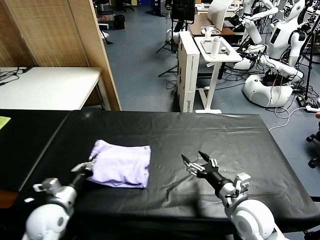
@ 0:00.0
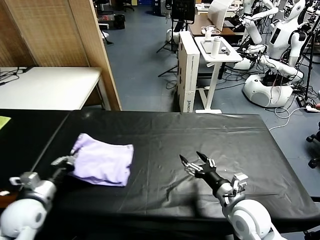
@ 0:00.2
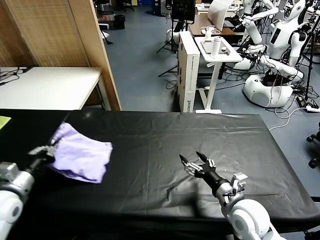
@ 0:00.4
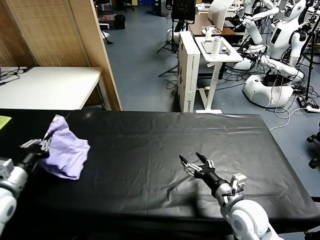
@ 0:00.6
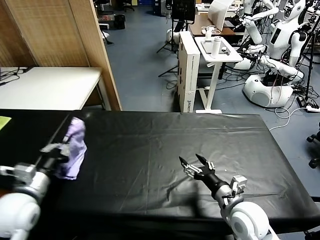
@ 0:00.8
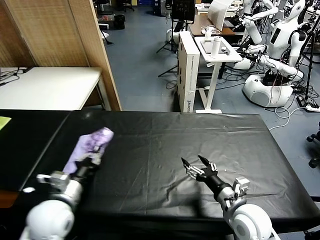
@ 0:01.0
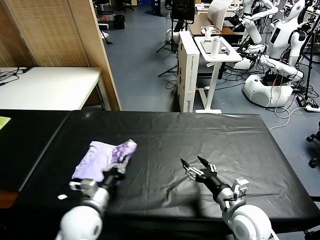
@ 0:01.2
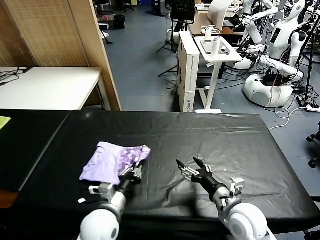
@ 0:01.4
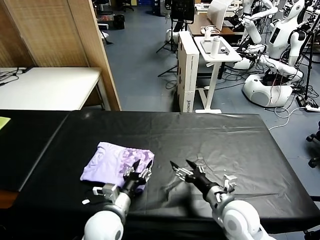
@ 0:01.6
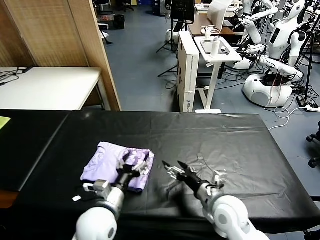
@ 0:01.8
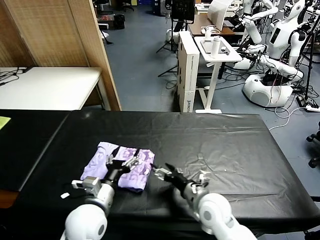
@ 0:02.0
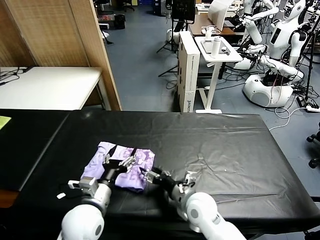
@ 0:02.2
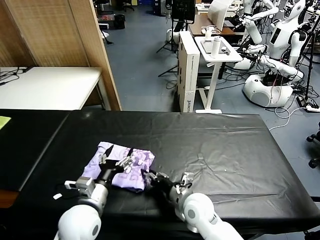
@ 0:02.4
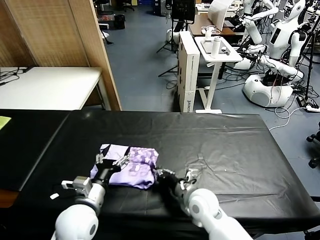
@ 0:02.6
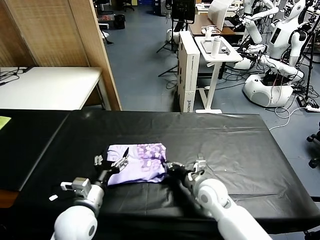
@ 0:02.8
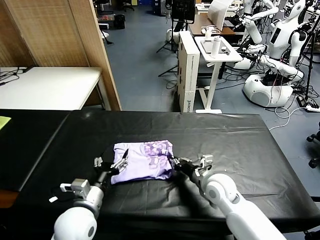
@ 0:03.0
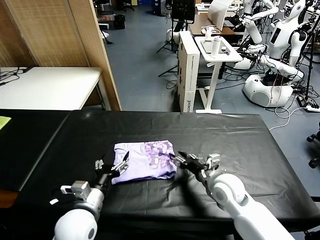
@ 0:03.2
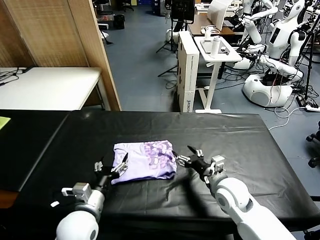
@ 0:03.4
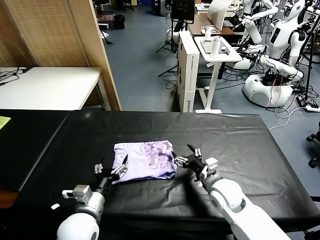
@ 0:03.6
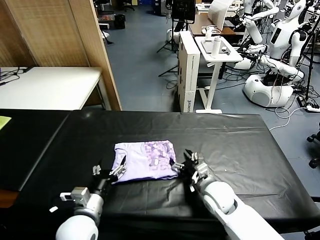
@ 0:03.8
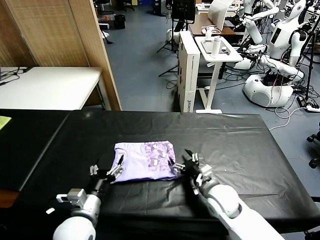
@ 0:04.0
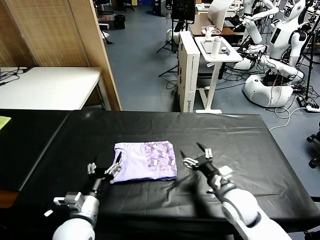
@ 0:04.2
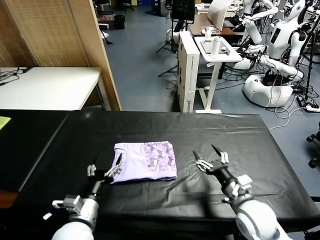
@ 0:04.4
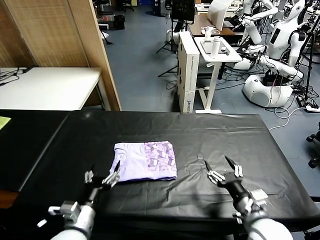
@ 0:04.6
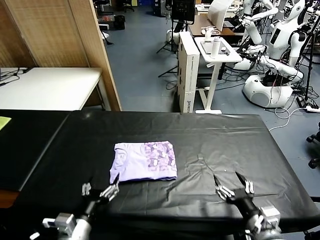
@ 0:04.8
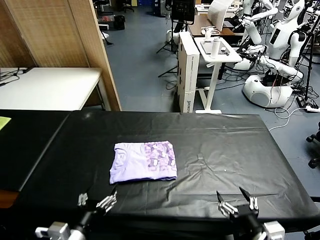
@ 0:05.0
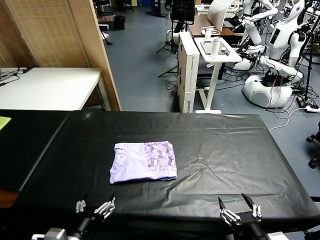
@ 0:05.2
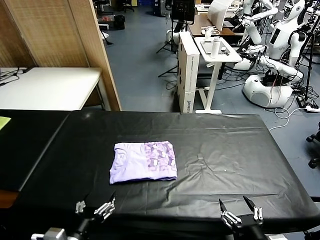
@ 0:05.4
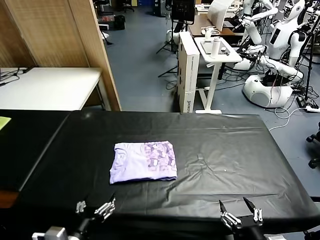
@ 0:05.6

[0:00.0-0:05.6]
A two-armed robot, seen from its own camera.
Task of the whole recording: fold and organize the clothes.
Step, 0:02.0 to 0:03.2: Drag the clothes to the center of the table.
0:00.0 to 0:01.4: The left gripper goes approximately 15 cm to the right.
0:01.4 to 0:02.8: The right gripper heads forward and to the left, covering approximately 10 cm, and closes up; the left gripper ends up approximately 5 cm from where it was, and opens up.
0:02.8 to 0:04.2: The right gripper moves to the right, roughly 5 cm, and opens.
0:04.2 to 0:05.6: The right gripper heads backward, covering roughly 20 cm. The left gripper heads backward, covering some 10 cm.
